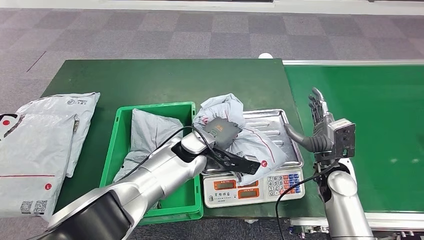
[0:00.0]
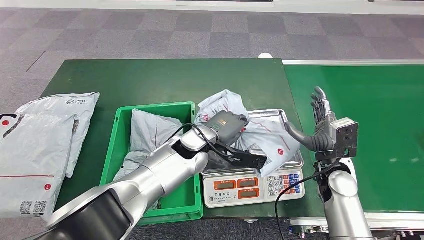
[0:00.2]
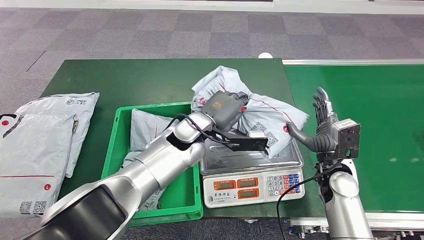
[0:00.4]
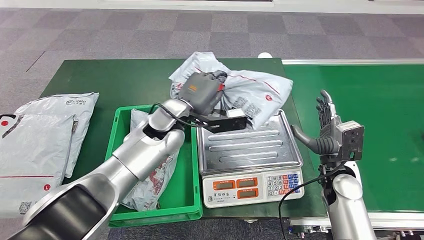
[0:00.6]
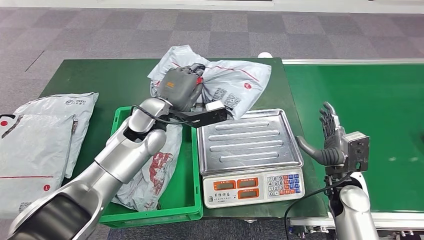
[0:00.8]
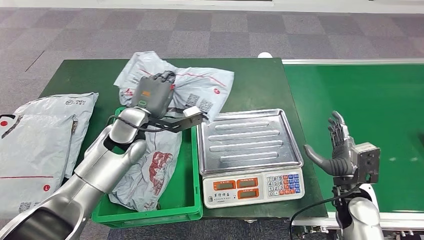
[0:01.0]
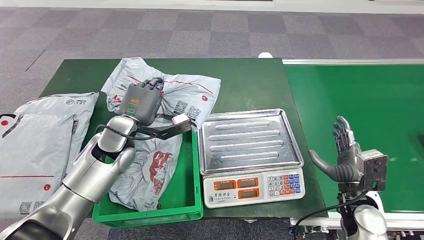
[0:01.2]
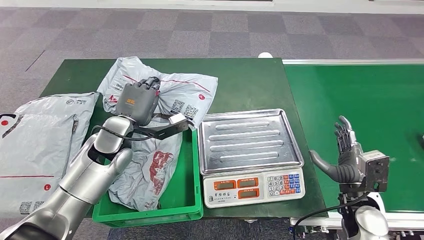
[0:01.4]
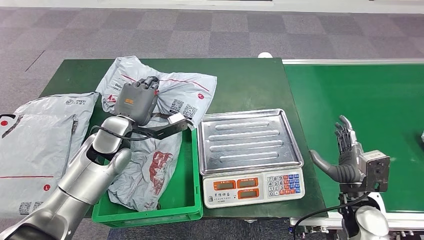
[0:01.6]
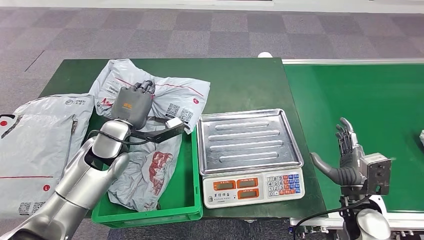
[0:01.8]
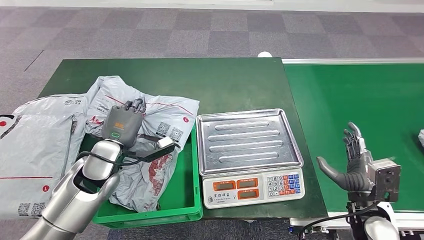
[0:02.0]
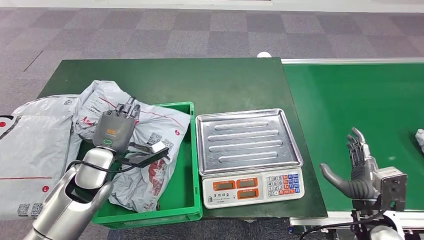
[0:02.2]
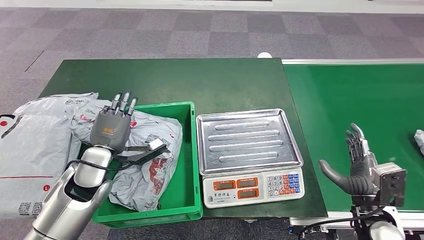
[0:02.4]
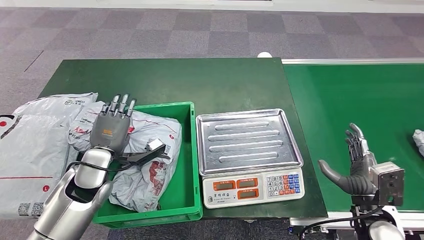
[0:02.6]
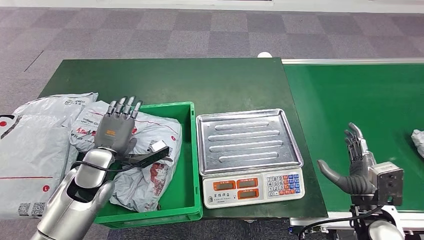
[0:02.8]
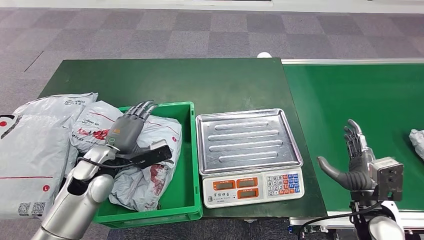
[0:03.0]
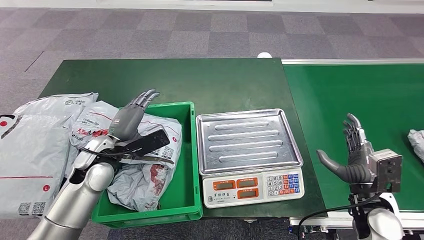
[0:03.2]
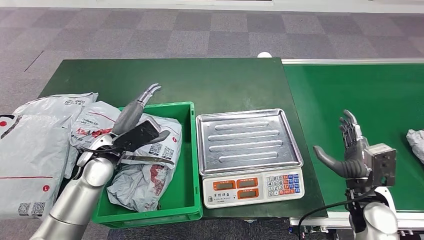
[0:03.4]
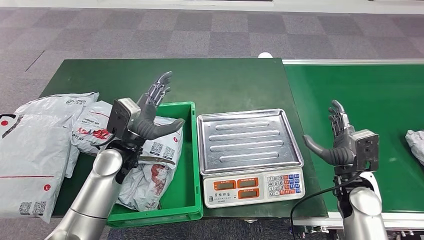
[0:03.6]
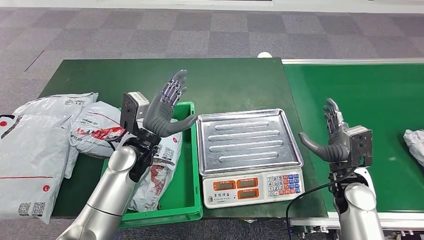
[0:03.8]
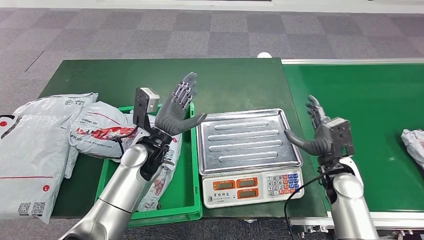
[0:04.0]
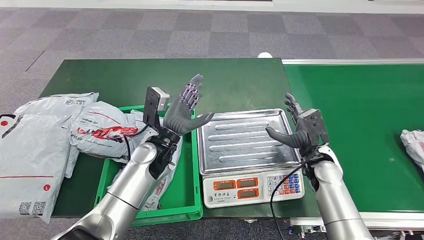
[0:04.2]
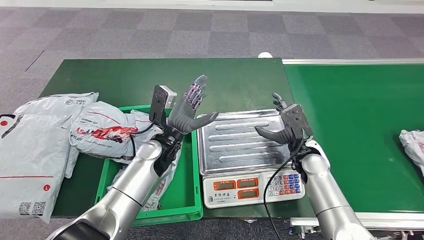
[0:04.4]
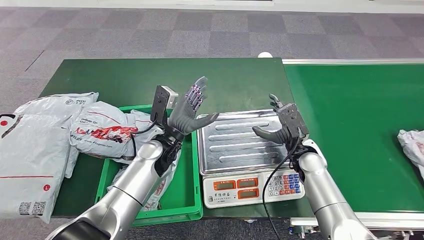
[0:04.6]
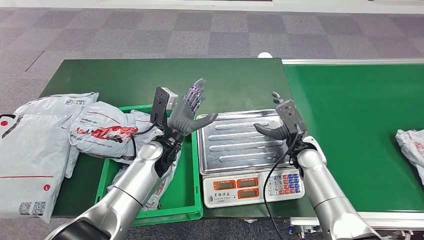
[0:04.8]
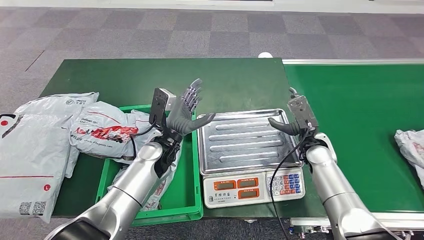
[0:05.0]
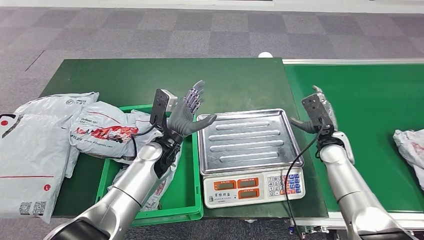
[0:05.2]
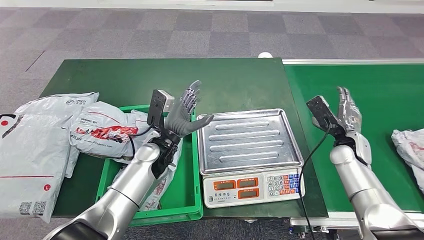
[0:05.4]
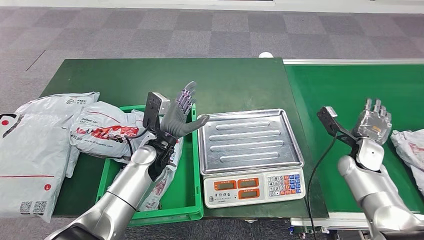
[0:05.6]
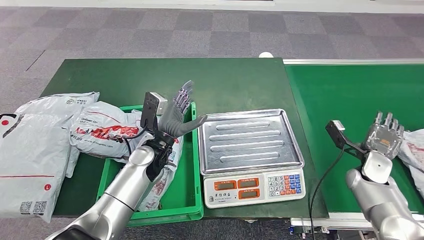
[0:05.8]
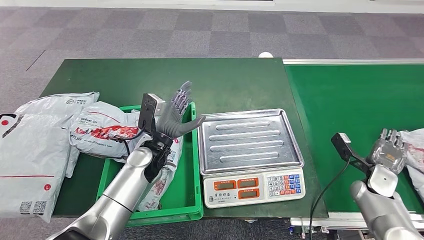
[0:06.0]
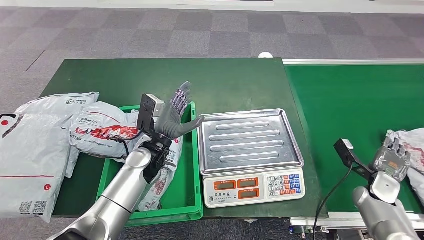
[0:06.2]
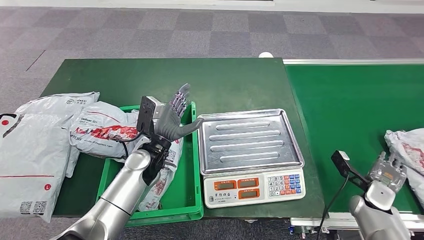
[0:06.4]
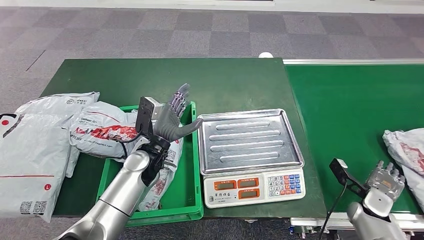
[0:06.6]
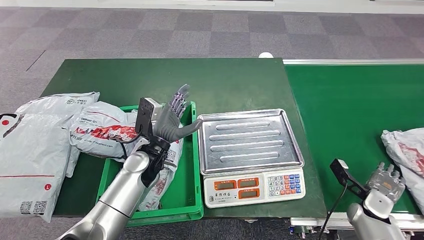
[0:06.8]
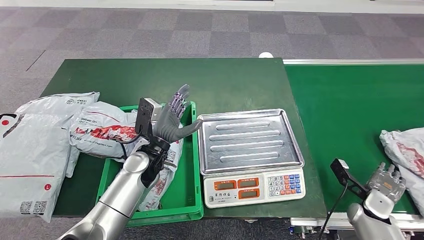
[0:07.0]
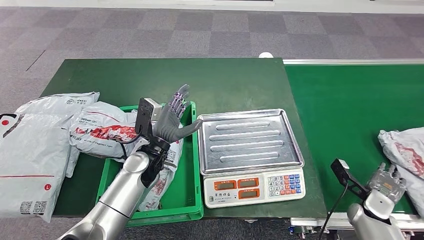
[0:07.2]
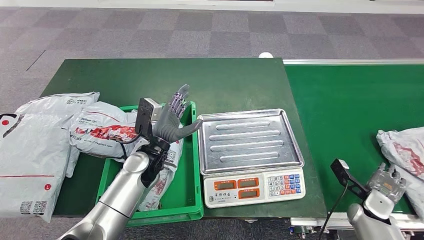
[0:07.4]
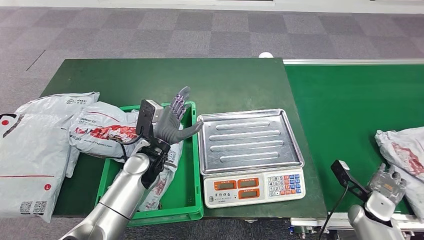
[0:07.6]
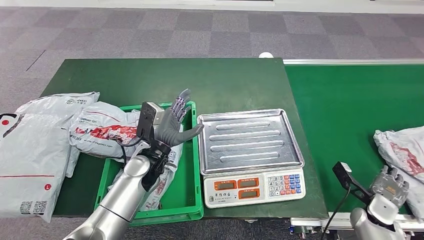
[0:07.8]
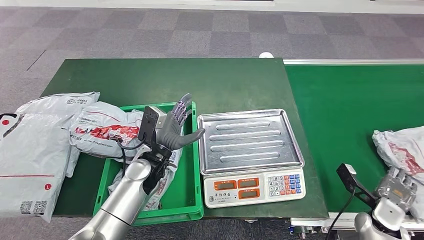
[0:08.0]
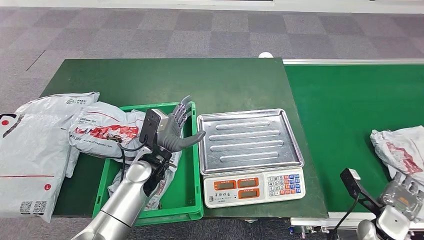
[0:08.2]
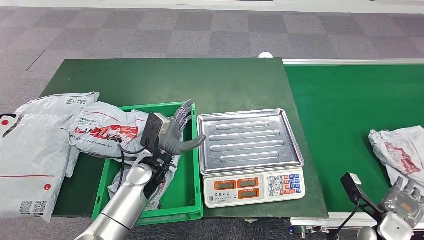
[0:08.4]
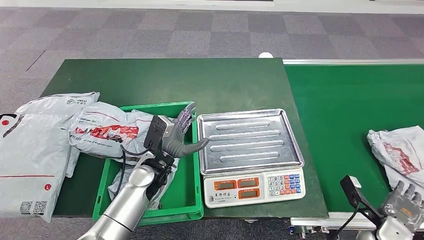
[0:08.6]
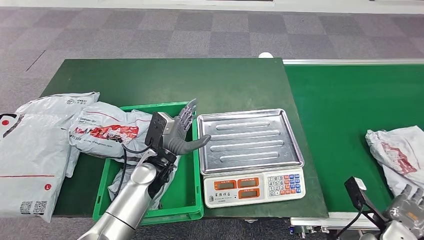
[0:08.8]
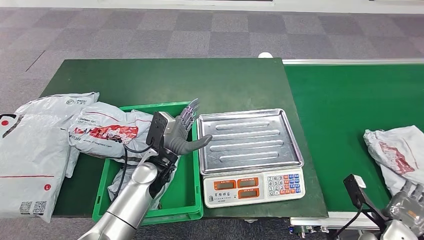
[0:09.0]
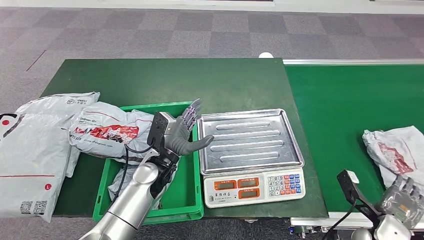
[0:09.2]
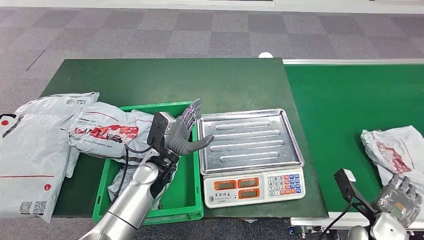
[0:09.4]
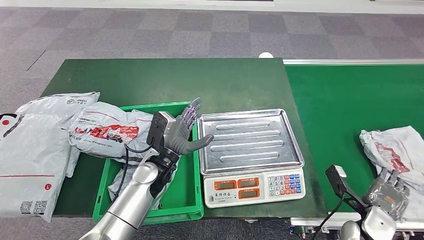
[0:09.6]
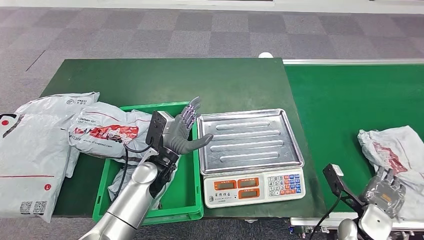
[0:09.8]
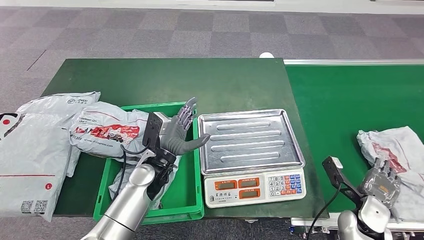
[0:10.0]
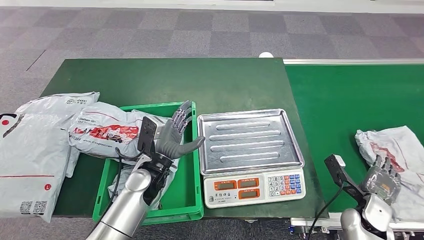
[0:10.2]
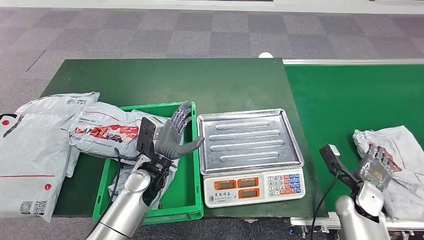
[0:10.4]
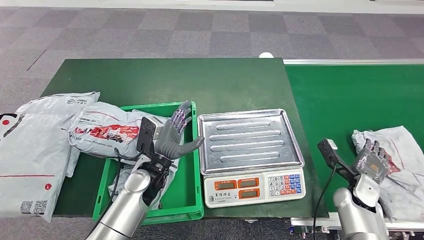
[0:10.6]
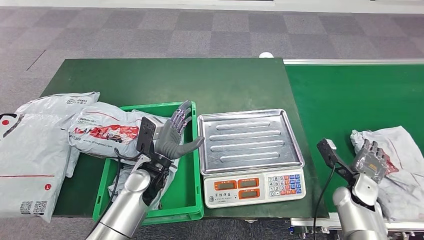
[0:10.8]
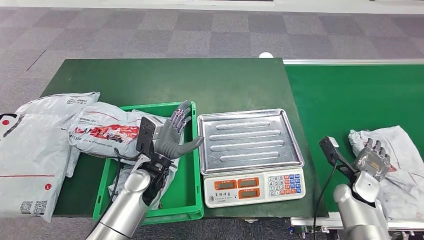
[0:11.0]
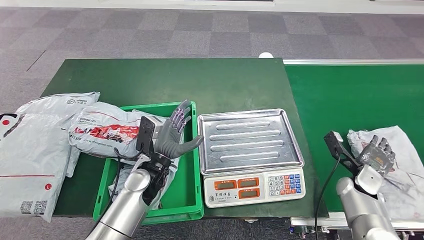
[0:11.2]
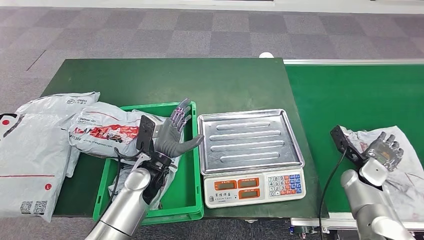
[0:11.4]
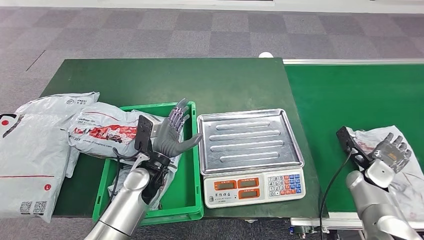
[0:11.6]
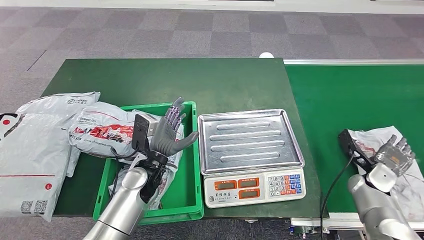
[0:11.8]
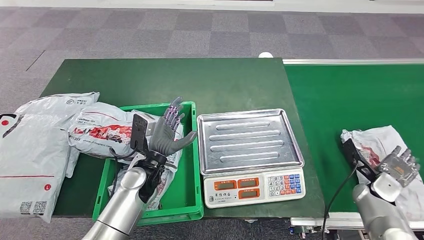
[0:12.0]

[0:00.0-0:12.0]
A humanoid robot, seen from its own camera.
Step, 0:00.2 to 0:01.0: Pick up the parcel from the inbound machine.
Step, 0:01.2 to 0:03.6: Place the parcel into the delivery box.
0:04.4 to 0:06.0: The right hand travels to the right by approximately 20 cm.
0:06.0 to 0:07.6: The right hand travels backward by roughly 5 cm.
0:07.6 to 0:09.0: The right hand heads backward, covering approximately 10 cm.
0:09.0 to 0:10.4: The right hand heads forward, covering roughly 10 cm.
0:10.4 to 0:12.0: The right hand shifts roughly 5 cm to the right.

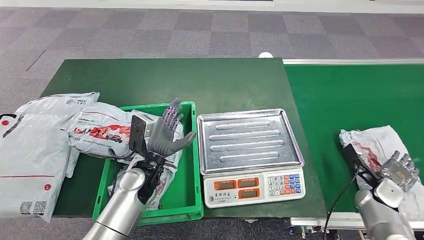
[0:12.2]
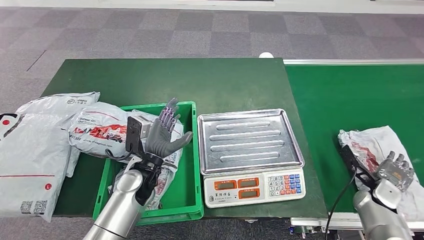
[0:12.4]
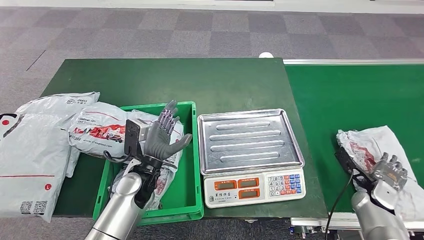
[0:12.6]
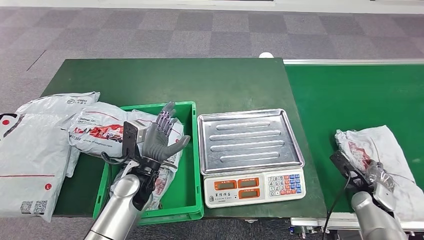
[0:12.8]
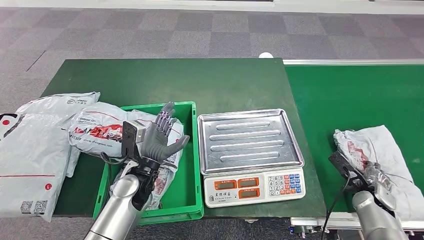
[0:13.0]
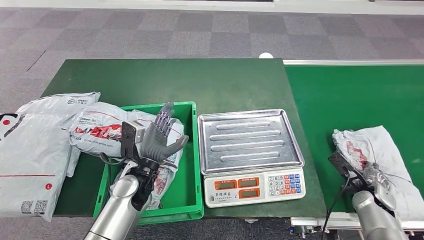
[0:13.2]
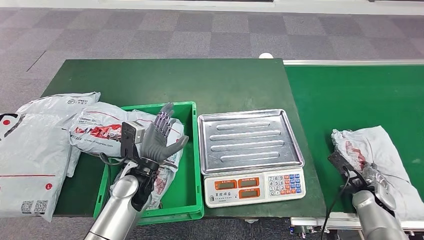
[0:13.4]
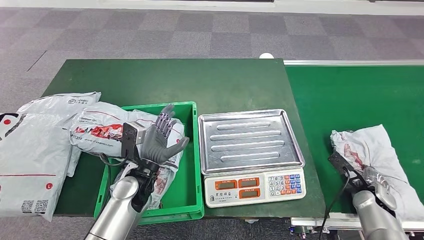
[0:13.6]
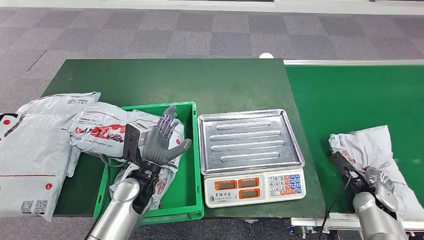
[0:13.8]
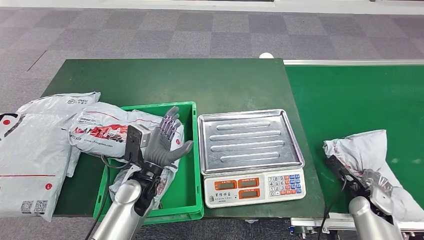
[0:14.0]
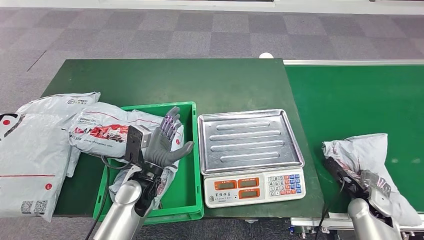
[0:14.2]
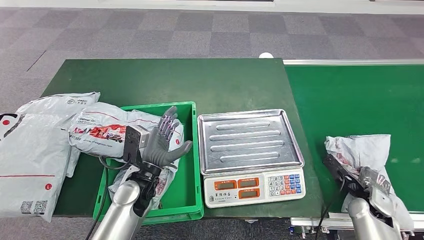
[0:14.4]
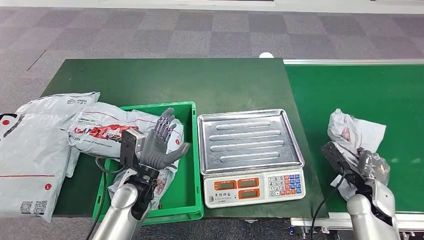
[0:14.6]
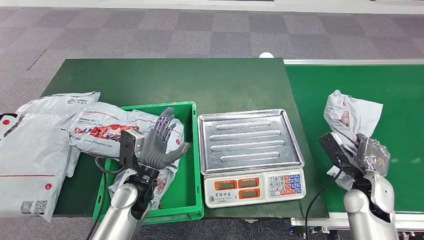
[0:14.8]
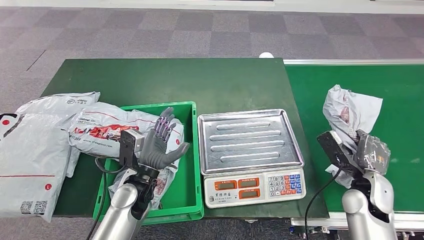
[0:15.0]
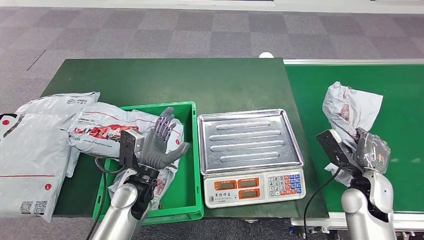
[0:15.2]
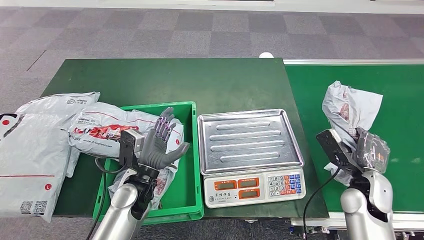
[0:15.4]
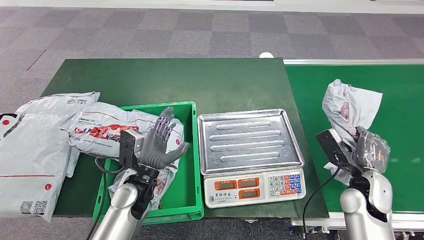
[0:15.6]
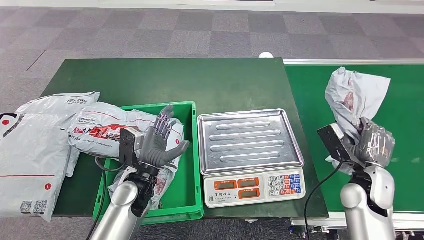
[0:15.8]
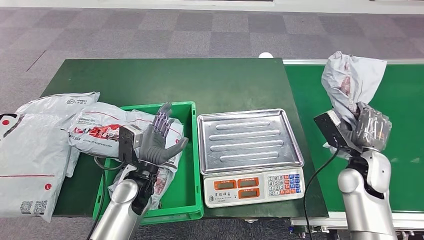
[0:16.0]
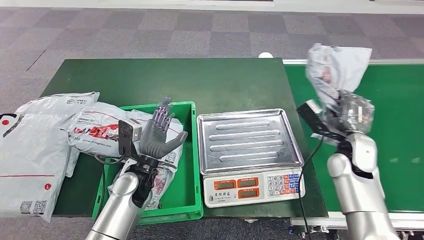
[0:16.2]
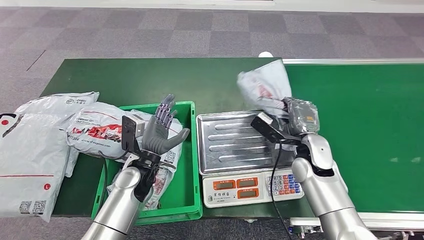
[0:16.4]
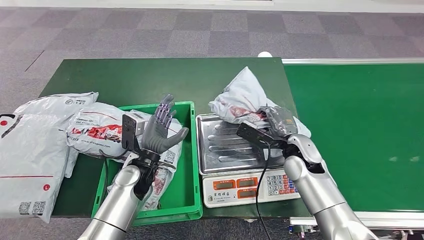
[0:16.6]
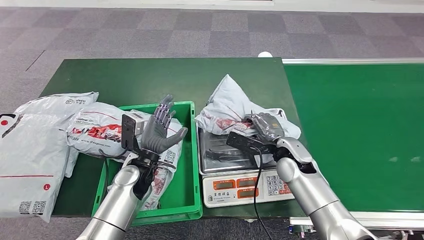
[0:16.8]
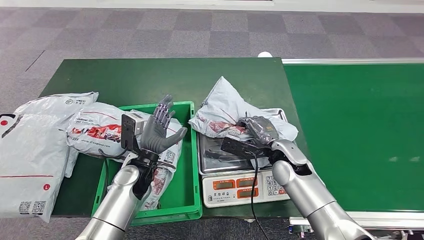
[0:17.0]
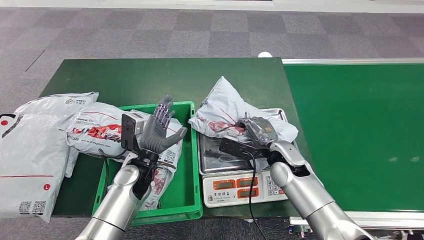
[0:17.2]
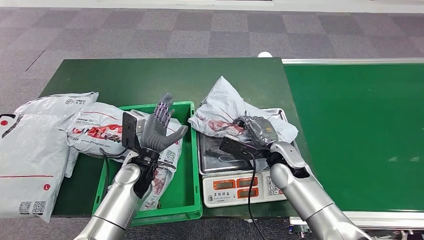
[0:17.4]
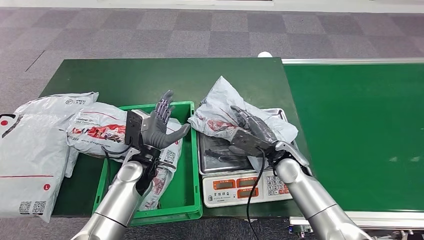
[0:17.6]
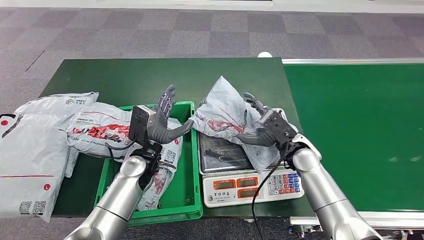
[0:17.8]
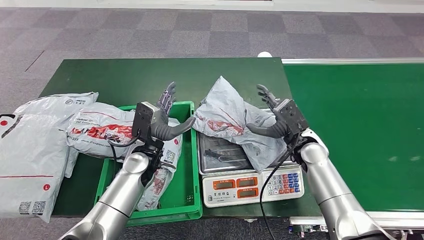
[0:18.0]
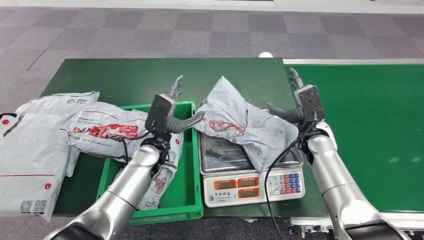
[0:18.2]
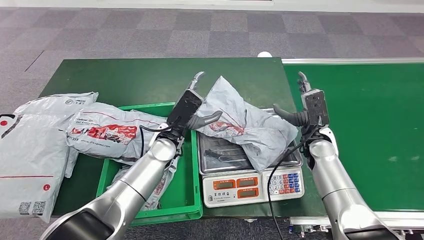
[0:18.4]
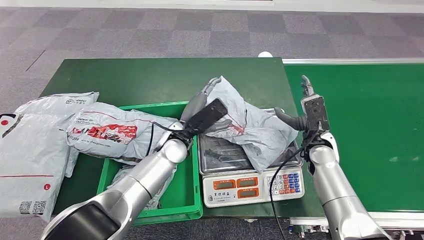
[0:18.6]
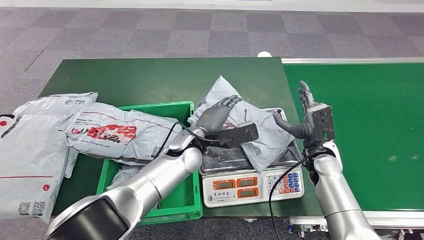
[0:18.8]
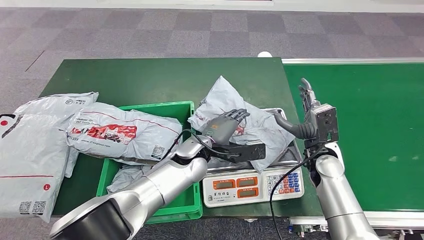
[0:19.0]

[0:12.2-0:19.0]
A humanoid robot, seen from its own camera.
Step, 0:14.0 to 0:15.4: Pick up the parcel from the conveyor belt.
Step, 0:16.2 to 0:18.6: Place the parcel onto the inbound machine.
0:13.6 to 0:15.0: The right hand heads upward and to the left, covering about 10 cm.
0:15.0 to 0:16.2: The right hand heads forward, covering approximately 10 cm.
